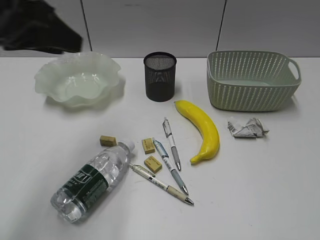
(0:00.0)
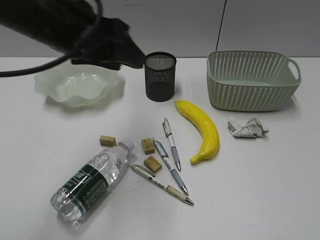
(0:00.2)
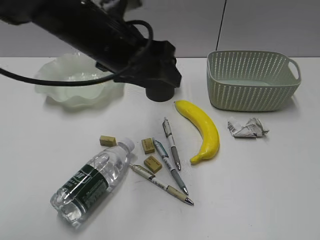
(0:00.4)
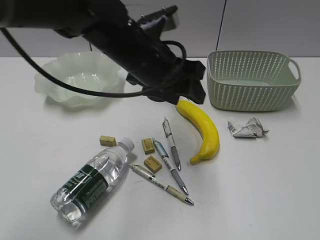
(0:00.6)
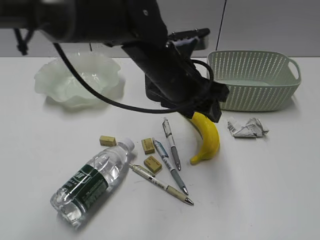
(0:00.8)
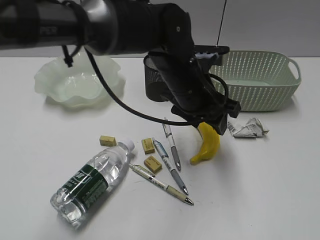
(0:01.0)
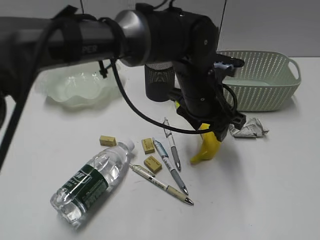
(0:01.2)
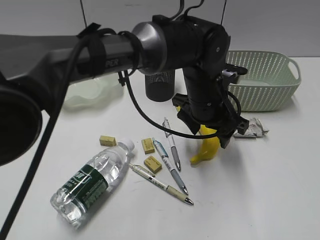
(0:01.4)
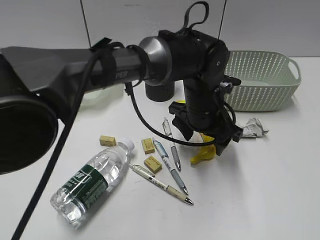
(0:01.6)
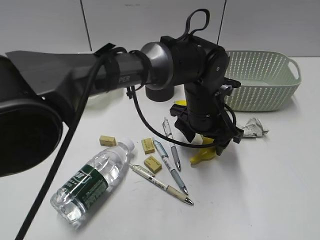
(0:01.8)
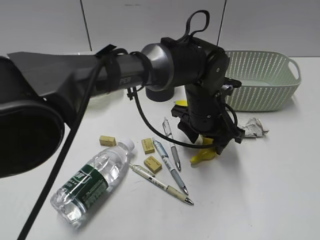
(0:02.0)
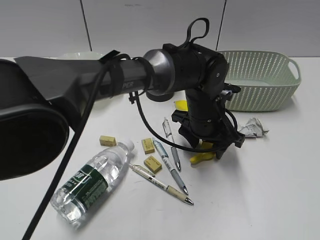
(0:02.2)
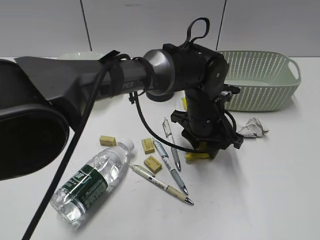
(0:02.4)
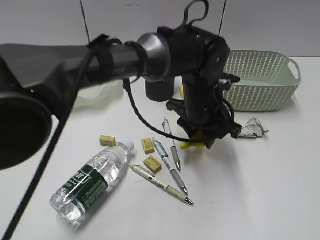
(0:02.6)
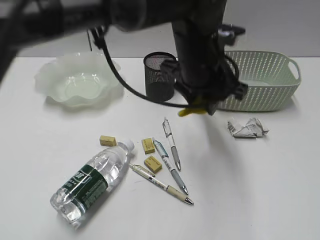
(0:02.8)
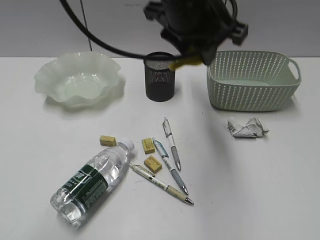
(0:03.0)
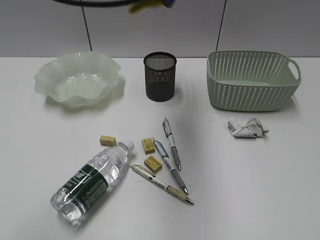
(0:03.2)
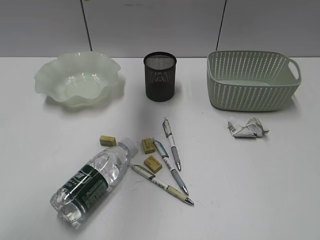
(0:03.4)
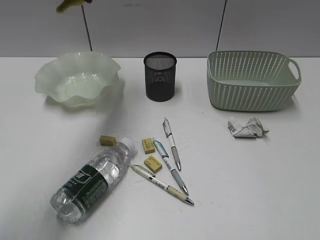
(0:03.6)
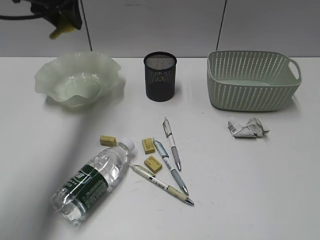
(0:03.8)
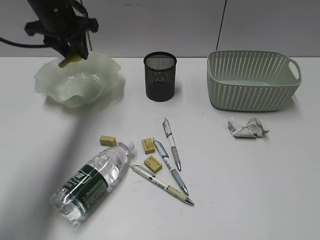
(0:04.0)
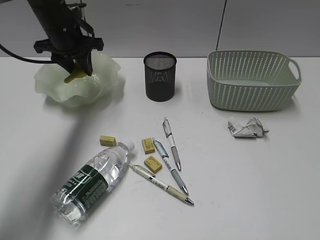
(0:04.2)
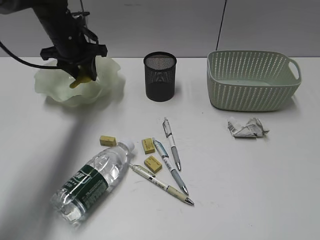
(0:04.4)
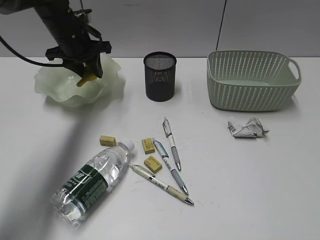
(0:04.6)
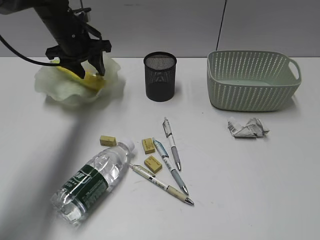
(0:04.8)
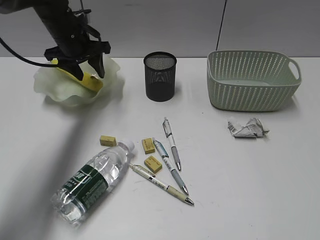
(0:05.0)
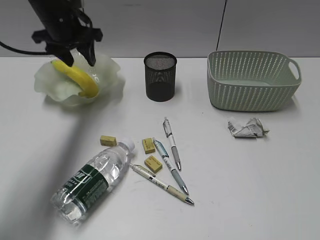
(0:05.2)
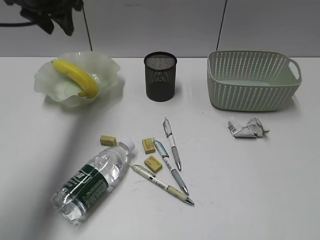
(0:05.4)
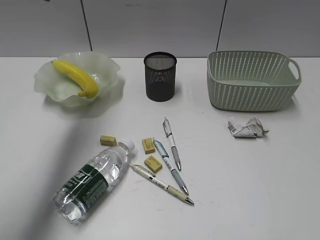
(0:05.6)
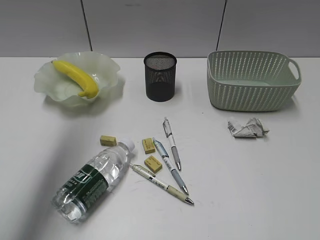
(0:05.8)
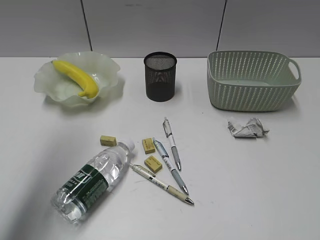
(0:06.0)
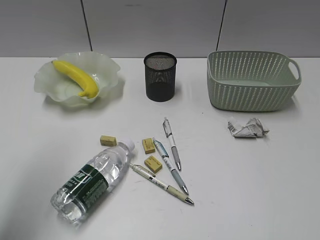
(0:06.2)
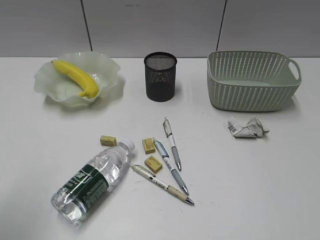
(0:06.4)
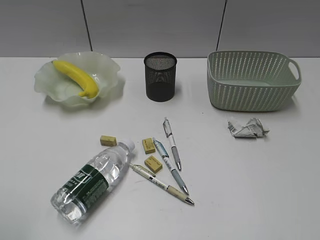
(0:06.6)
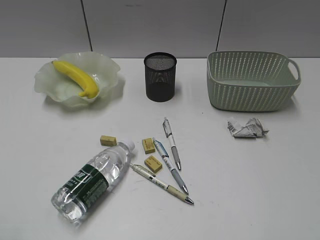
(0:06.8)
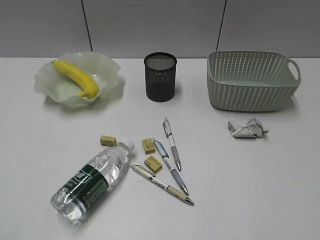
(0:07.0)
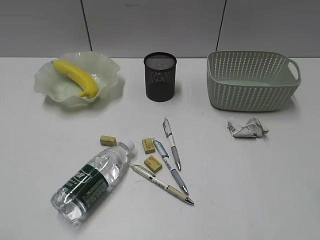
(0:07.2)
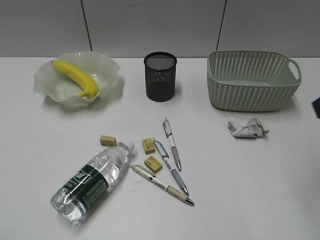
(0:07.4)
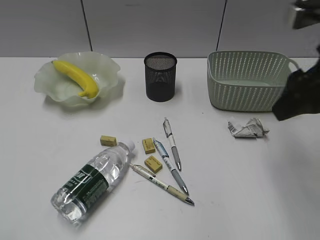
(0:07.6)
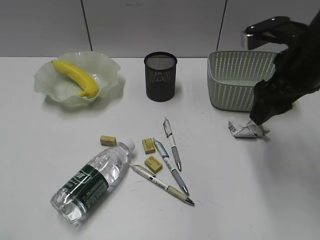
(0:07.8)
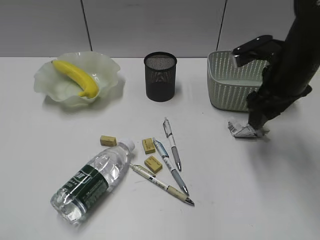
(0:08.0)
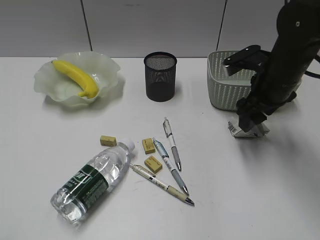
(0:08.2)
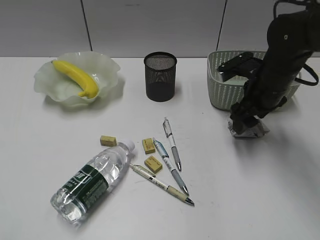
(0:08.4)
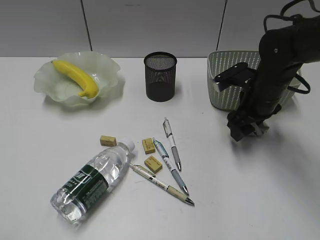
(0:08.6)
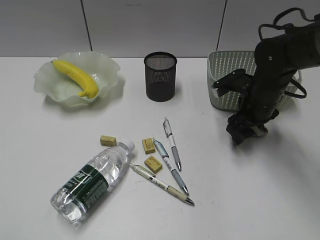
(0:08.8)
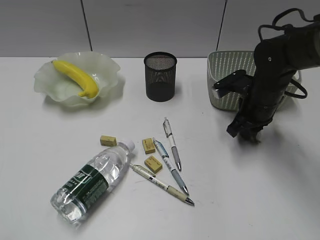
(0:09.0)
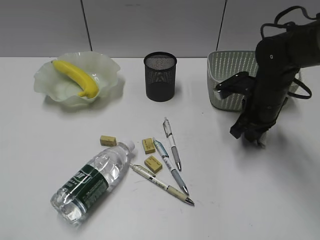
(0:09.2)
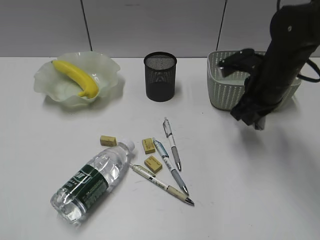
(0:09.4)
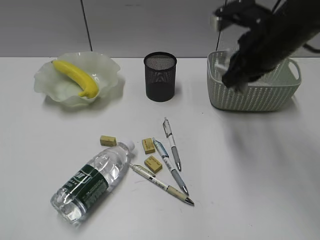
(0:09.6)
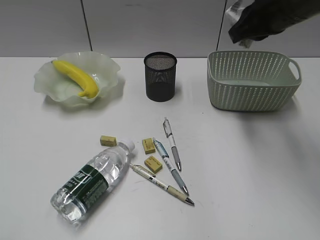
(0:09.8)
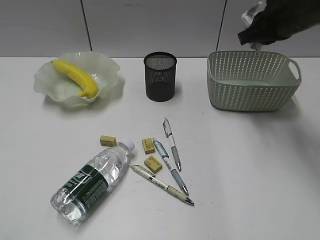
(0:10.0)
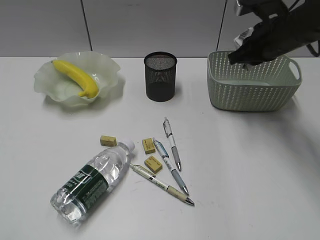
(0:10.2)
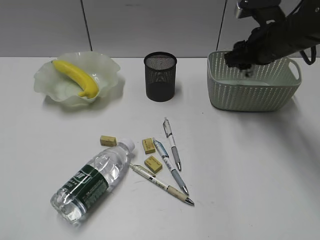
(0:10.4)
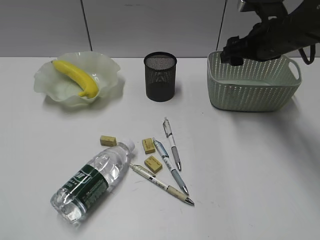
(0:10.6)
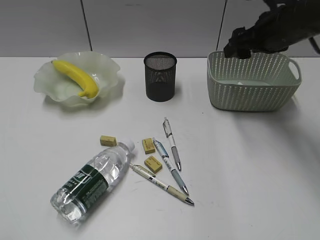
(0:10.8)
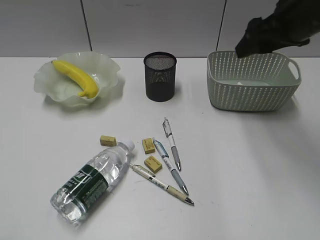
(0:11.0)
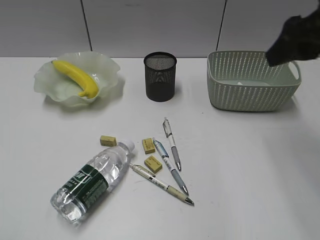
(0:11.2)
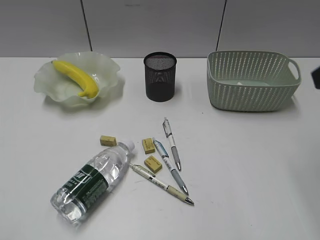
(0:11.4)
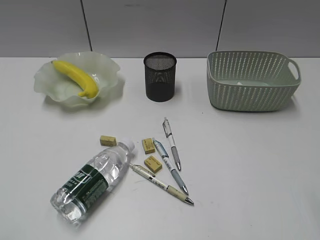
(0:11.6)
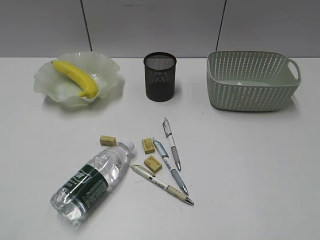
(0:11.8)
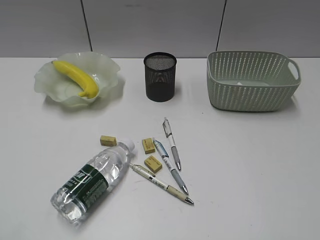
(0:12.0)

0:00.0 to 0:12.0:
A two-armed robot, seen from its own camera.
Step, 0:00.0 to 0:02.4: Grasp the banana with left gripper.
Step, 0:02.6 to 0:05.2: Place the banana in the plate with left gripper.
Step, 0:05.4 to 0:09.0: Grasp the waste paper with right gripper.
Step, 0:09.2 to 0:10.6: Place the waste paper in the basket with right gripper.
0:00.0 to 0:01.6: The left gripper goes roughly 35 cm to the right and downward, and opens.
0:01.6 to 0:03.0: The left gripper moves upward, approximately 15 cm, and closes its fingers.
0:03.0 to 0:04.4: The left gripper moves to the left, forward and downward, approximately 30 cm.
0:04.4 to 0:06.0: The left gripper heads backward and upward, covering some 30 cm.
0:06.0 to 0:07.6: The left gripper goes about 30 cm backward, while the right gripper moves forward, about 25 cm, and opens up.
0:07.6 to 0:09.0: The right gripper goes some 25 cm downward and forward, and closes up.
0:09.0 to 0:10.4: The right gripper travels upward by roughly 10 cm.
0:10.4 to 0:12.0: The right gripper heads backward, covering about 40 cm, and opens.

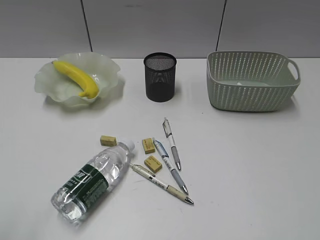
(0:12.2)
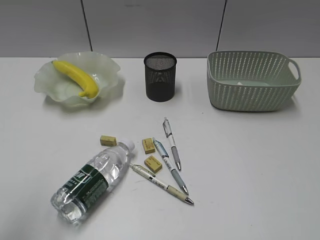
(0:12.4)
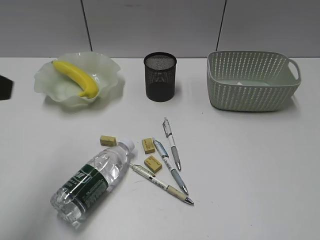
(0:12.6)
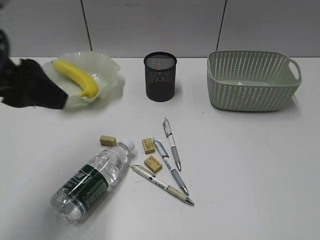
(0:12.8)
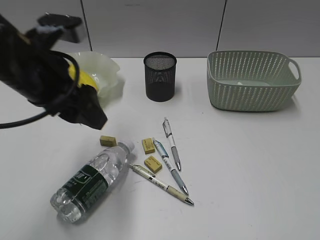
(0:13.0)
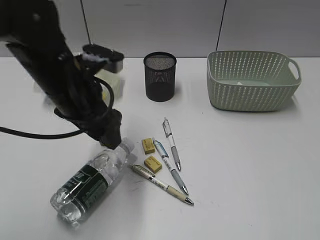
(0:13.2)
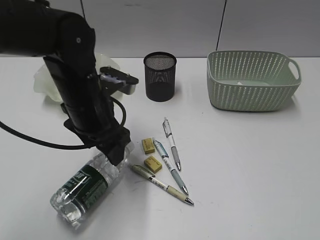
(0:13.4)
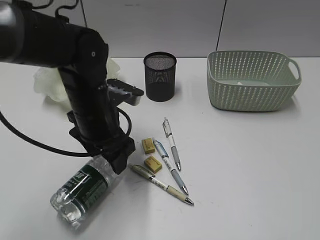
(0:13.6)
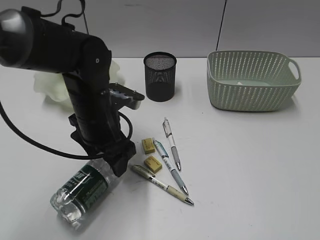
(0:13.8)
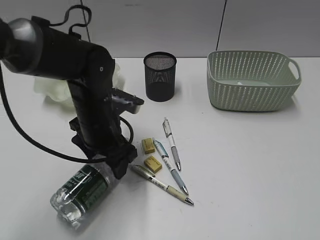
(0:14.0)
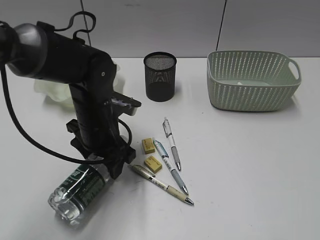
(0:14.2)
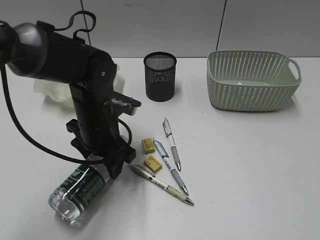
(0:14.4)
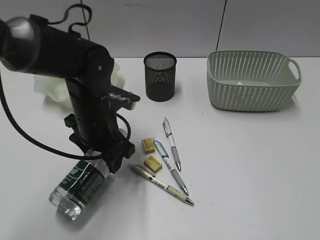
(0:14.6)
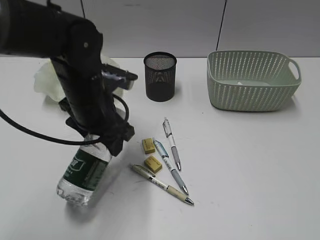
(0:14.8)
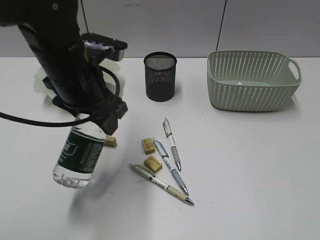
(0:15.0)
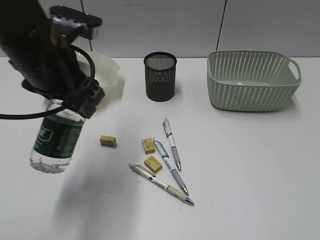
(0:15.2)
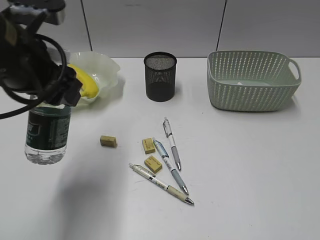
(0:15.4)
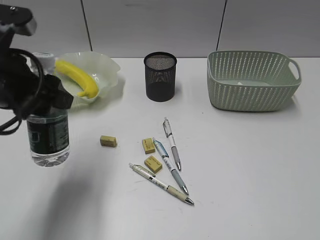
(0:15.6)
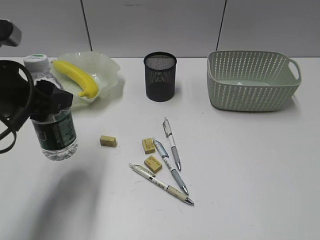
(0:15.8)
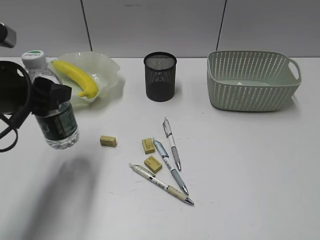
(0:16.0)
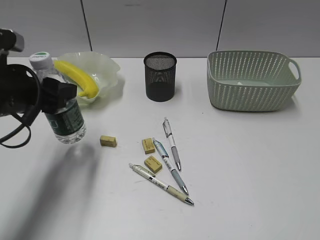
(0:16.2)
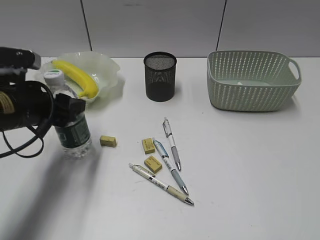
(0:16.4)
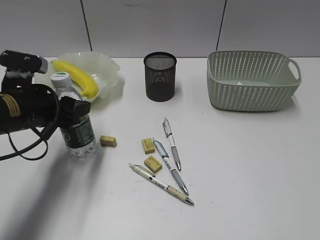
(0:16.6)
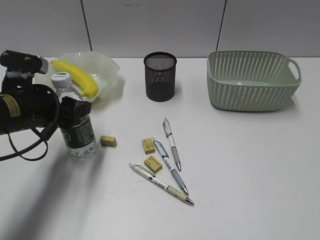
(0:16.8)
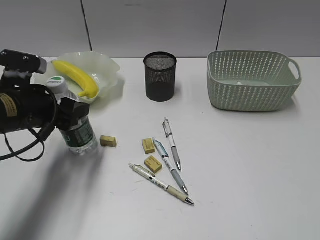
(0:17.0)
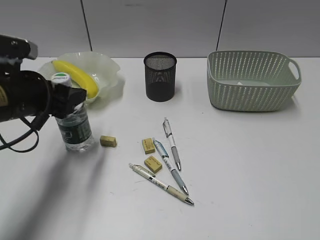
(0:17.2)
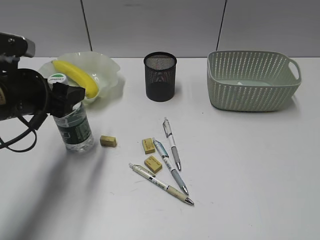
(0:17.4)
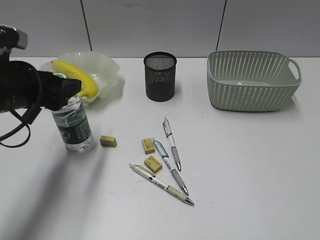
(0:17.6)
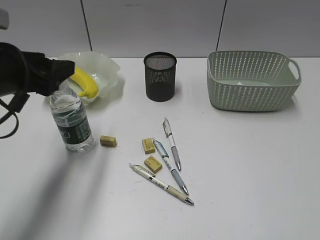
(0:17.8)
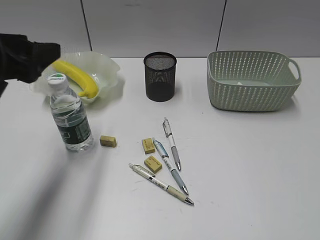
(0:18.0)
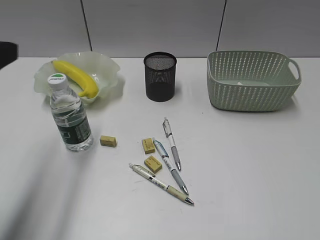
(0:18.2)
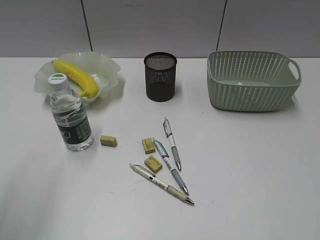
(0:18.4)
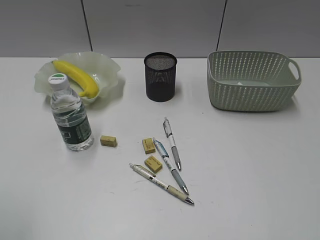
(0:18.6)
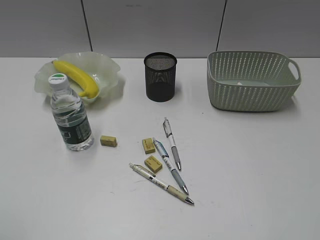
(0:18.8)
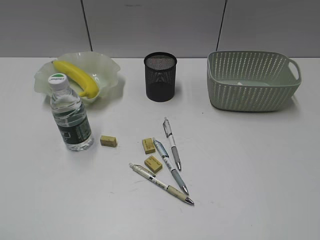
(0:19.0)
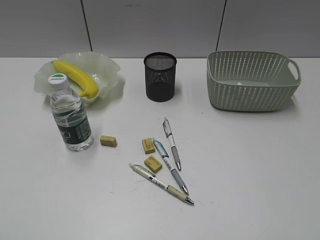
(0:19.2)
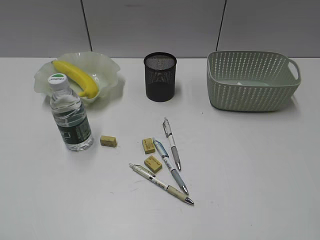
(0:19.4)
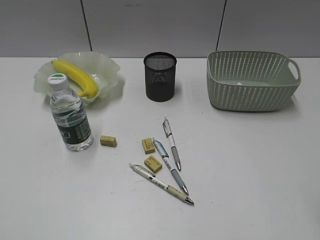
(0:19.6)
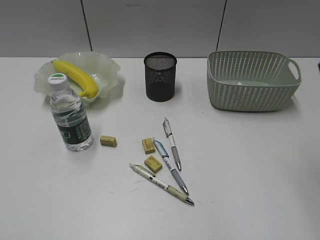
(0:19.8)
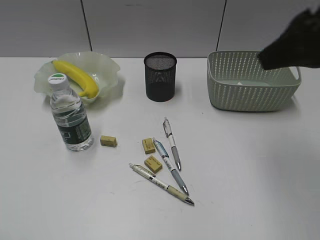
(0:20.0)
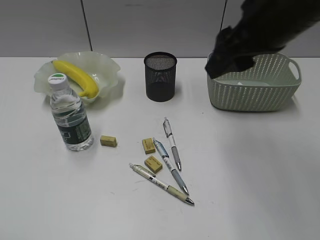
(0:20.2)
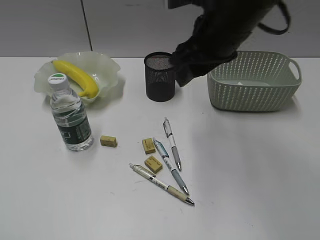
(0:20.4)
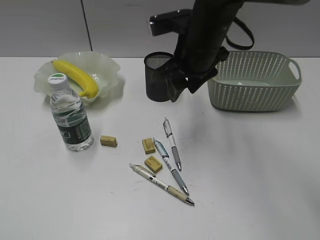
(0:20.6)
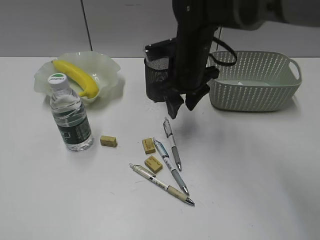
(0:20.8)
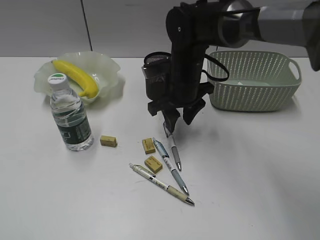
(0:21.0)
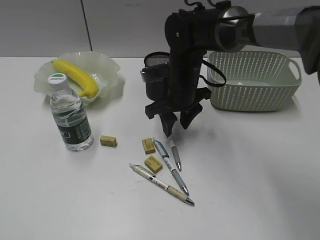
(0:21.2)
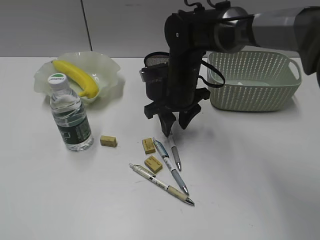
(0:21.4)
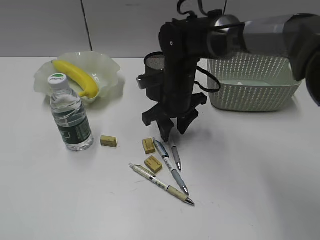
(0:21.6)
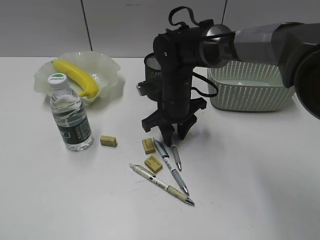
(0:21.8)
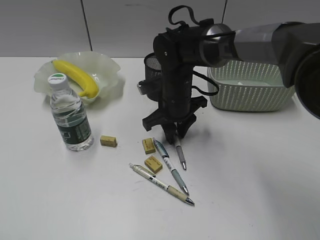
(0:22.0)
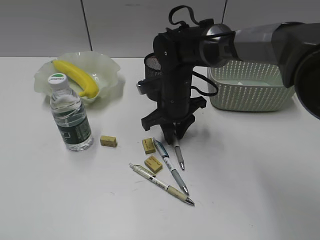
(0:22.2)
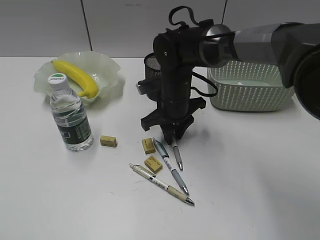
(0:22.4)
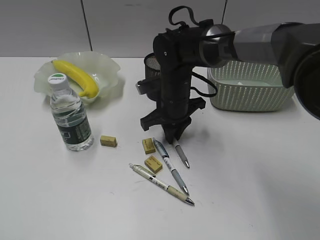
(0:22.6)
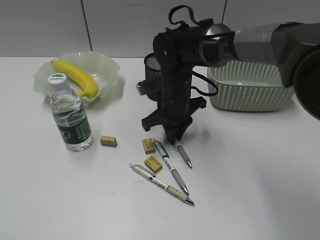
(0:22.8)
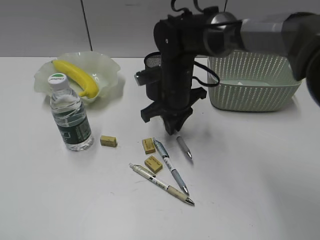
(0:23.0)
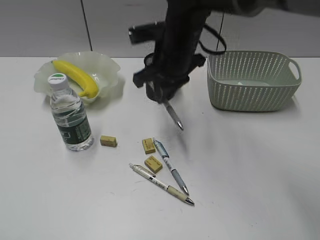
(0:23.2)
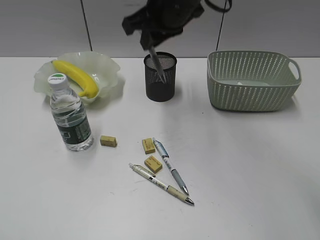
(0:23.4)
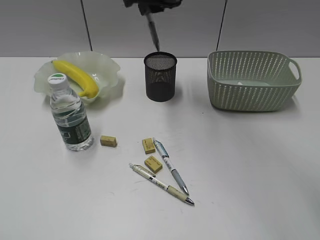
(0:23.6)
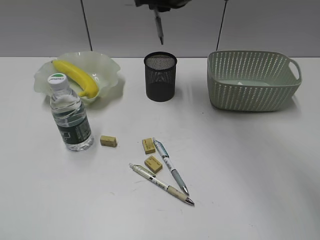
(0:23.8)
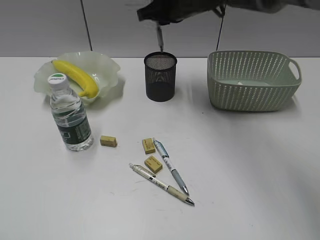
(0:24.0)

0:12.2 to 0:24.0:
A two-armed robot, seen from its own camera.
Step, 0:12.2 to 0:14.2: Grasp the bottle with left gripper.
Step, 0:14.4 to 0:17.8: Stand the bottle with left gripper.
Step, 0:18.0 to 0:22.6: Grasp the gray pen with right gripper.
0:12.2 to 0:13.6: The left gripper is displaced forward, to the right and downward by approximately 40 cm, and opens up.
0:13.6 to 0:15.2: The left gripper shifts approximately 10 cm upward.
0:15.2 to 0:16.6: The left gripper heads downward and to the left, covering approximately 15 cm.
0:16.6 to 0:18.2: The left gripper heads upward and backward, covering about 15 cm.
0:18.2 to 0:19.6: The left gripper is displaced backward by some 20 cm.
0:19.6 to 0:21.0: The right gripper shifts about 40 cm forward, to the left and downward.
0:21.0 to 0:22.6: The right gripper closes up.
0:22.6 to 0:24.0: The right gripper goes some 15 cm upward and forward.
